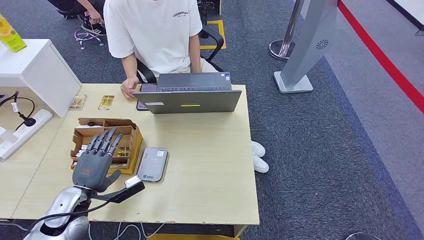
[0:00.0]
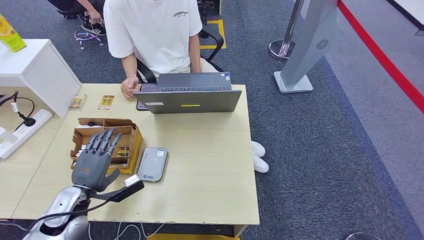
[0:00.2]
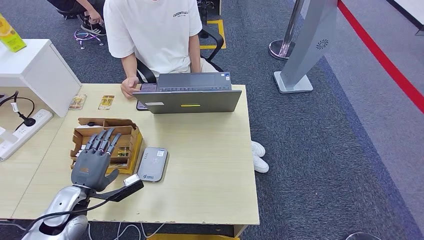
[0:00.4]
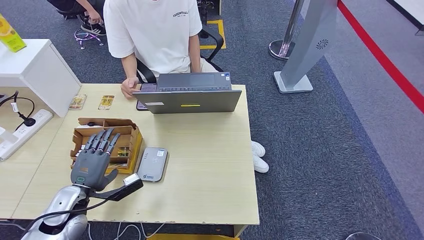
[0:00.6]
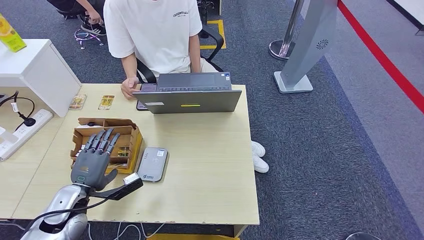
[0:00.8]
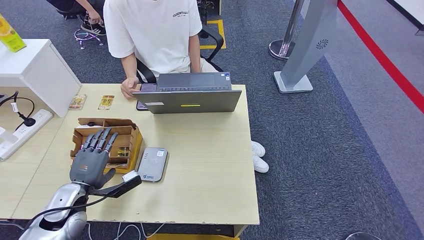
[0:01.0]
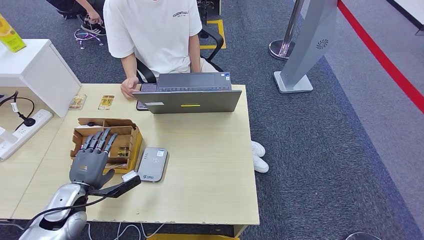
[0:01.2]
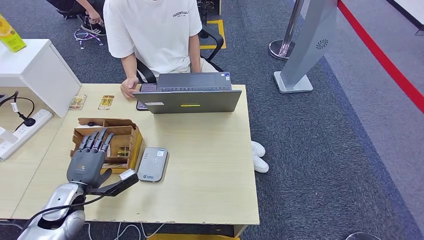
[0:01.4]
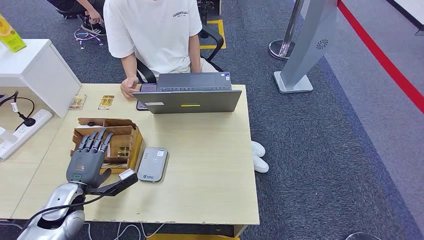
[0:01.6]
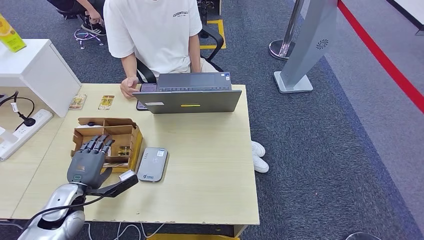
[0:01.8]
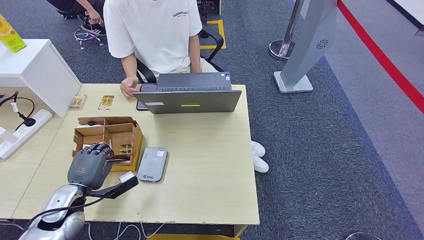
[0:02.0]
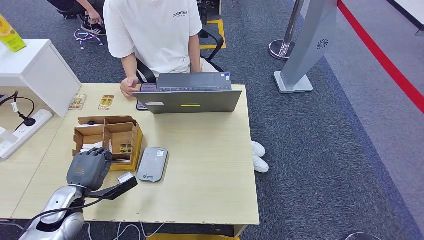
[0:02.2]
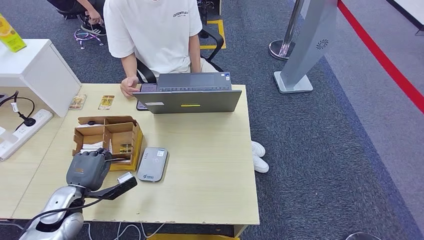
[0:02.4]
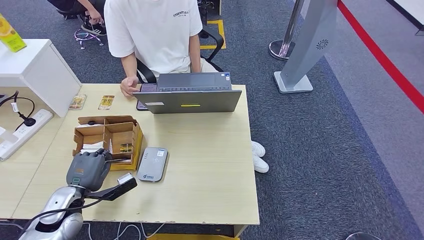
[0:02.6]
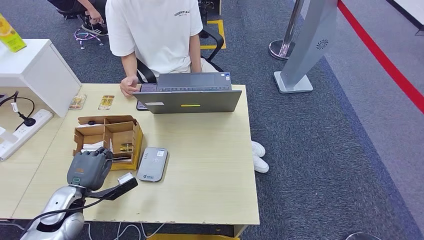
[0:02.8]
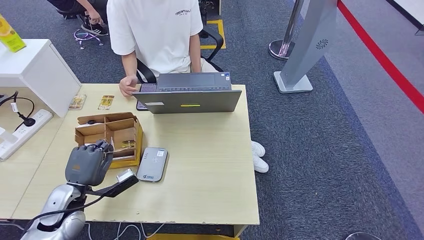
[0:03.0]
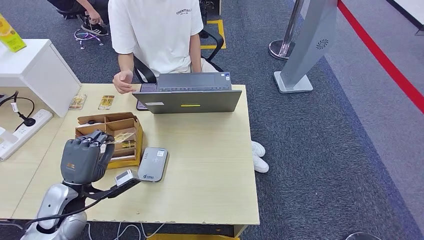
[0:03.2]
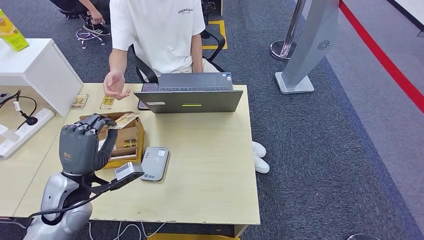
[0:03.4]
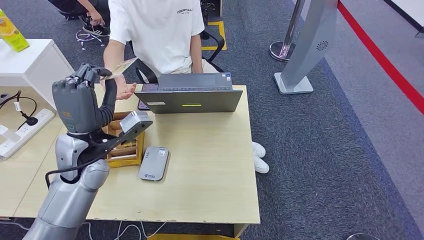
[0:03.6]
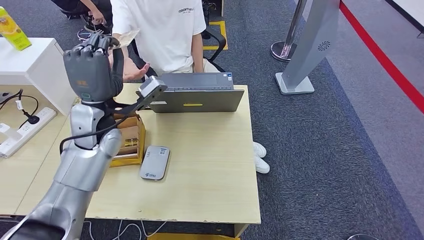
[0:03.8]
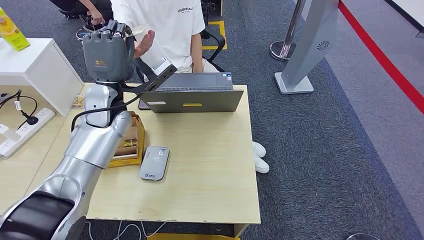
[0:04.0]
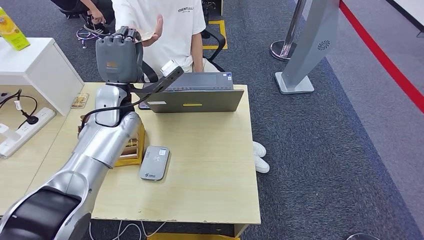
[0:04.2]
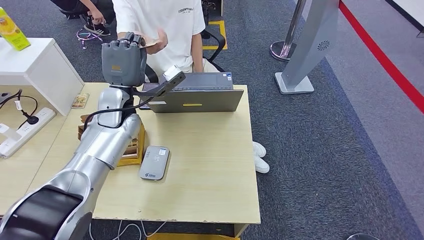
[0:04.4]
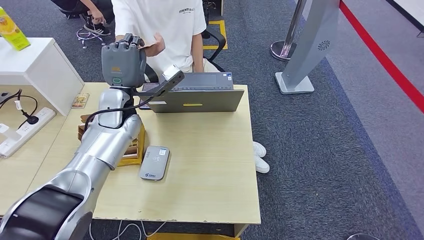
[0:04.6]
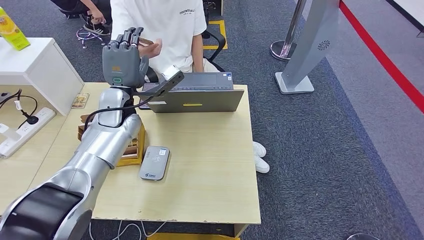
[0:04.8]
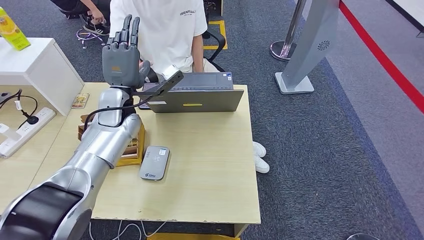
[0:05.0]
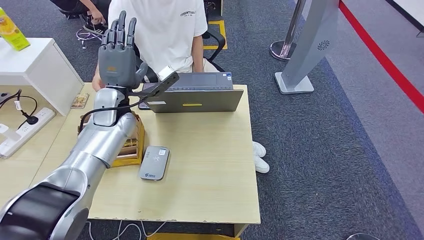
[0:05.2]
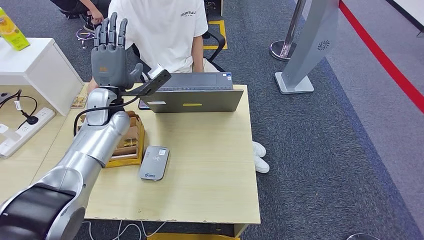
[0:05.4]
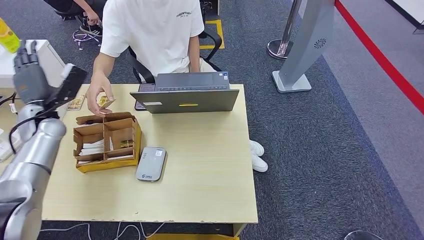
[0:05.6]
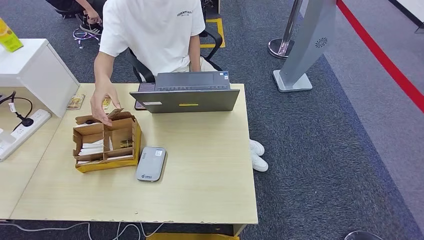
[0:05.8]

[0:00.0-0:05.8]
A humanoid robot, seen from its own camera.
Step, 0:00.0 to 0:02.6: Pick up the room key from the key card box.
Step, 0:02.8 to 0:05.8: Hand the room key to the person.
0:00.0 to 0:02.8: The hands stay close to where they were, moving slightly.
0:02.8 to 0:04.4: The left hand moves forward, upward and to the right, roughly 30 cm.
